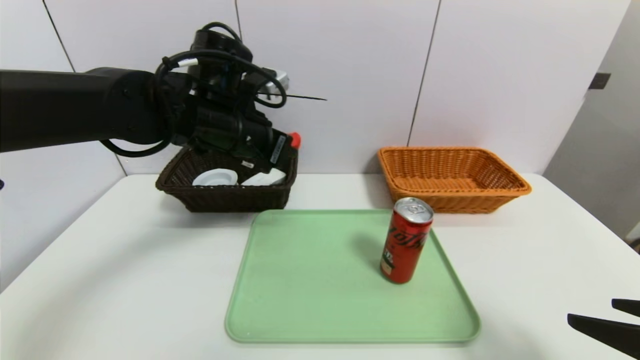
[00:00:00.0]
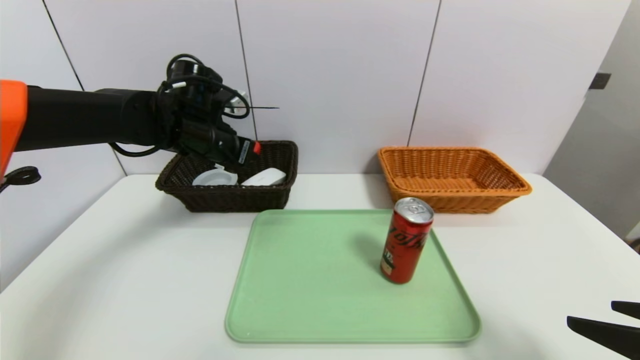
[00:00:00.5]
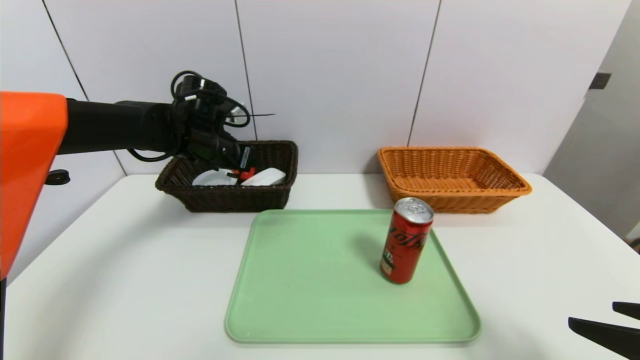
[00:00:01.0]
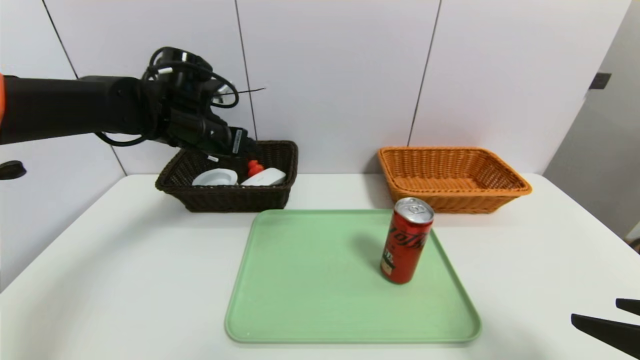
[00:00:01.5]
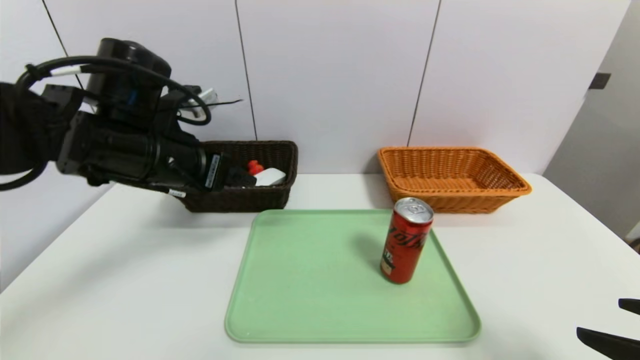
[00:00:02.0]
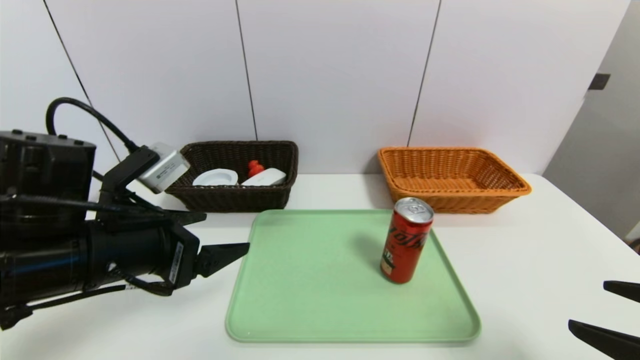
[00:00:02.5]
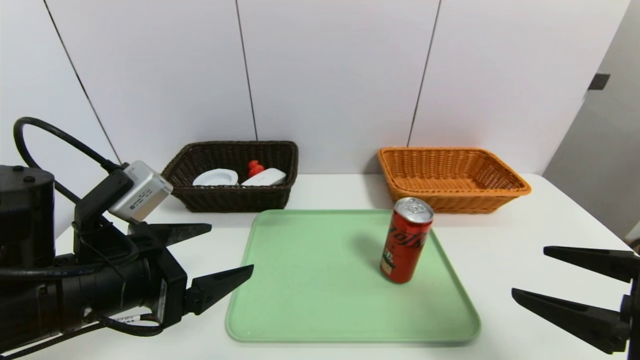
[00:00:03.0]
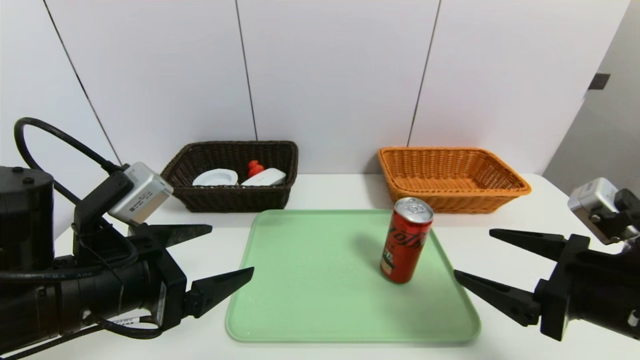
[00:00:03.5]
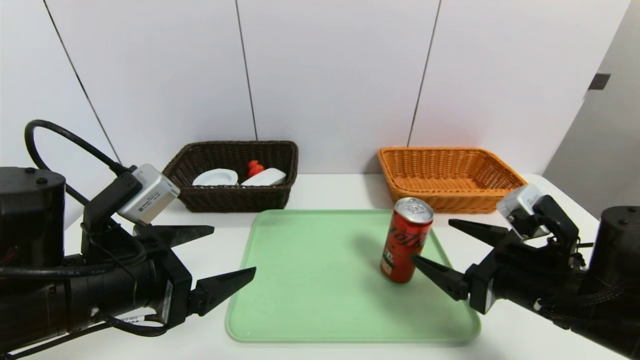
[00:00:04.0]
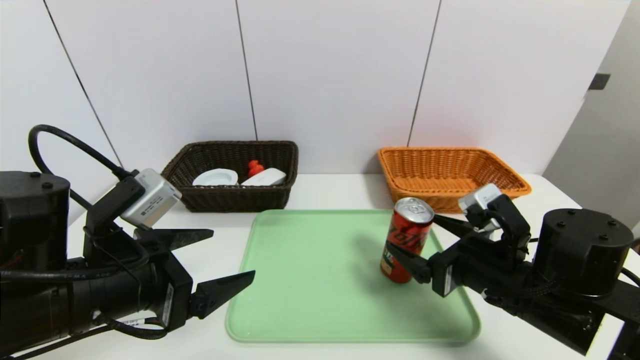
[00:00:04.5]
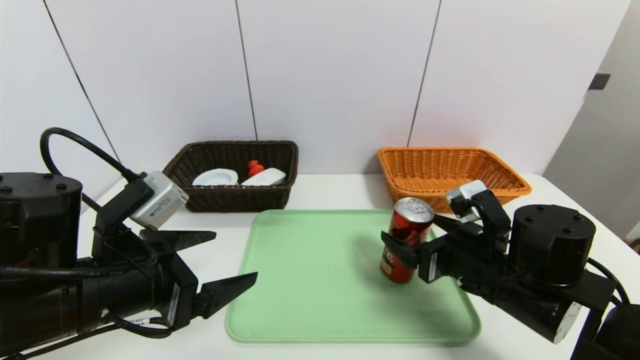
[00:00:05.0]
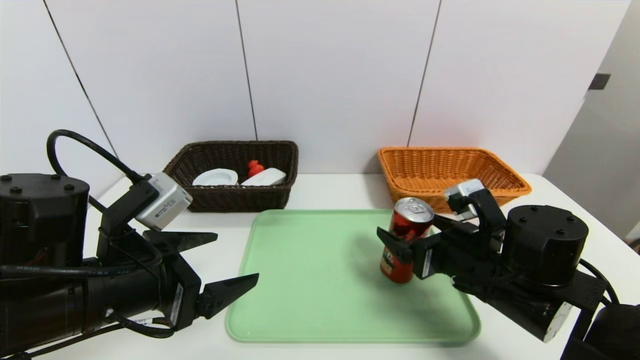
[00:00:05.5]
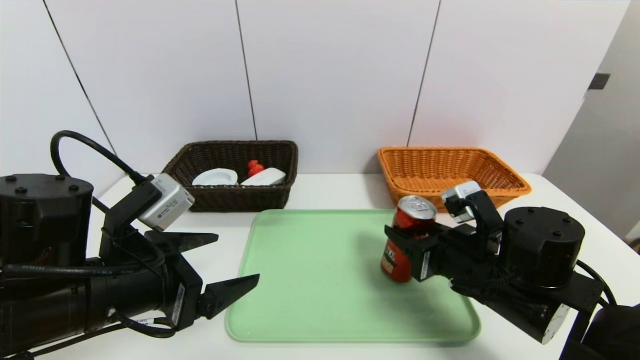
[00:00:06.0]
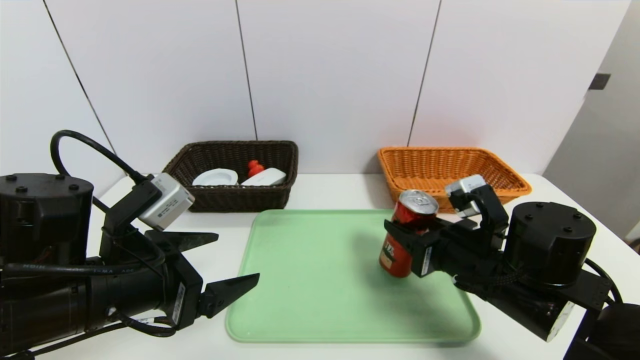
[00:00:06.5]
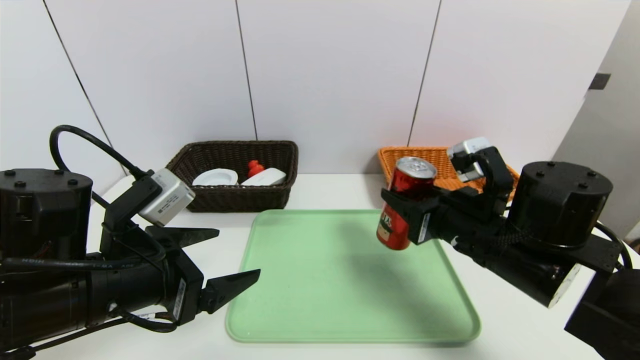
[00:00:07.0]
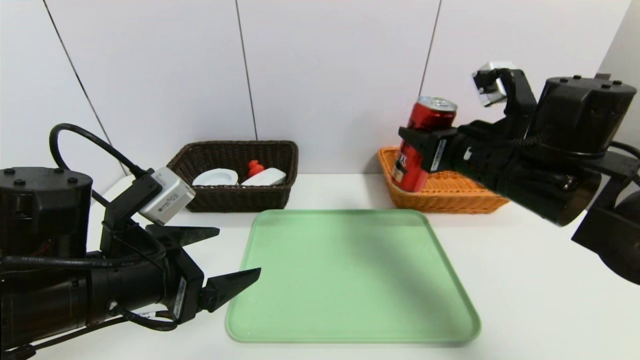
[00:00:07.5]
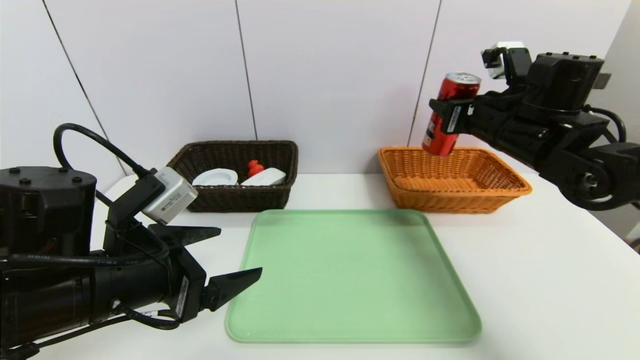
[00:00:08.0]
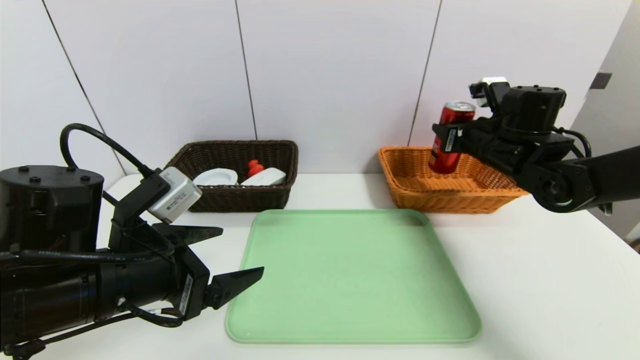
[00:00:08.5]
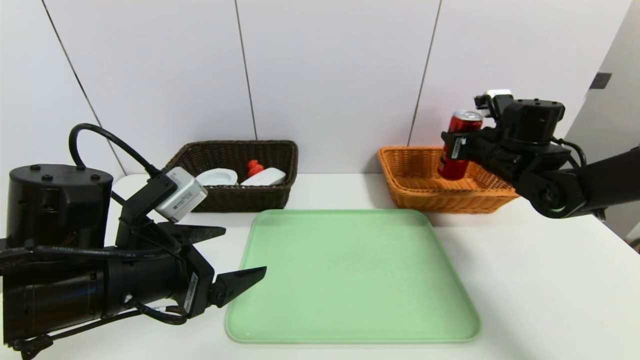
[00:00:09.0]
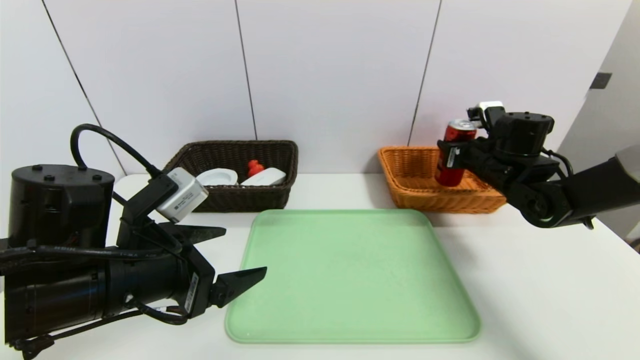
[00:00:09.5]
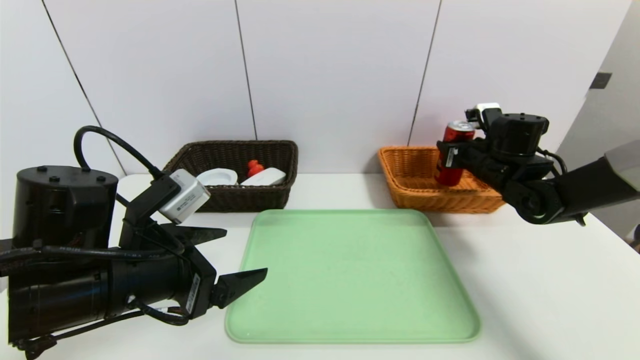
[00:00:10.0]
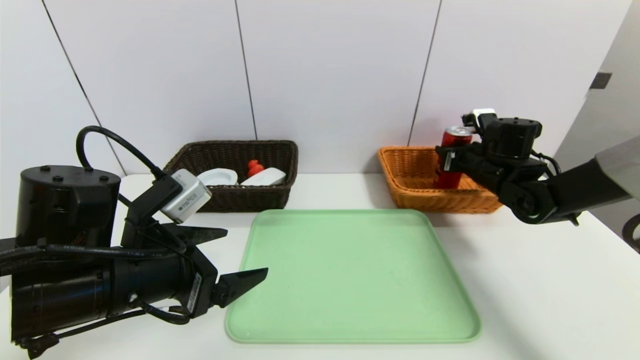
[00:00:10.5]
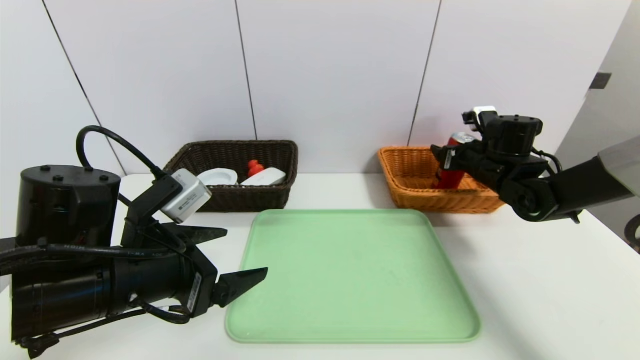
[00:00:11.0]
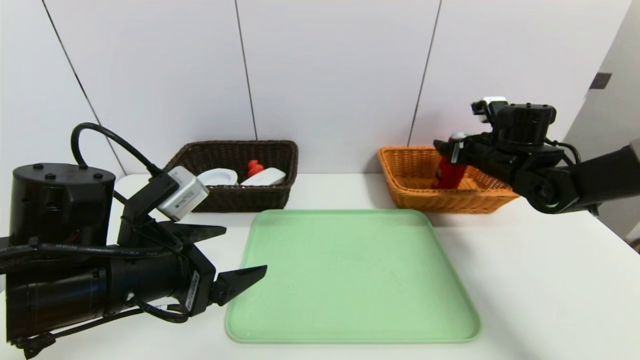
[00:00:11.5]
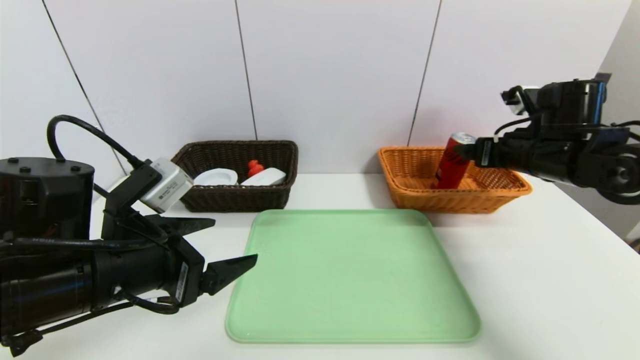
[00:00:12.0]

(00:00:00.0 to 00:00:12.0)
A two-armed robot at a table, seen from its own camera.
Task of the whole recording: place the food in the right basket with the right gripper, and place the non food items in the left basket with the left gripper.
Step, 00:00:01.5 - 00:00:11.5: Grasp the coke and put it in the right basket.
00:00:00.0 - 00:00:02.0: The left gripper shifts about 10 cm backward and to the left, and opens.
00:00:02.0 - 00:00:04.0: The right gripper travels forward, to the left and downward by roughly 15 cm, while the left gripper goes about 15 cm backward and downward.
00:00:04.0 - 00:00:06.0: The right gripper ends up roughly 5 cm from where it was, and closes.
00:00:06.0 - 00:00:08.0: The right gripper shifts roughly 20 cm upward, forward and to the right.
00:00:08.0 - 00:00:10.0: The right gripper shifts about 10 cm downward and forward.
00:00:10.0 - 00:00:12.0: The right gripper shifts approximately 10 cm backward and upward, and opens up.

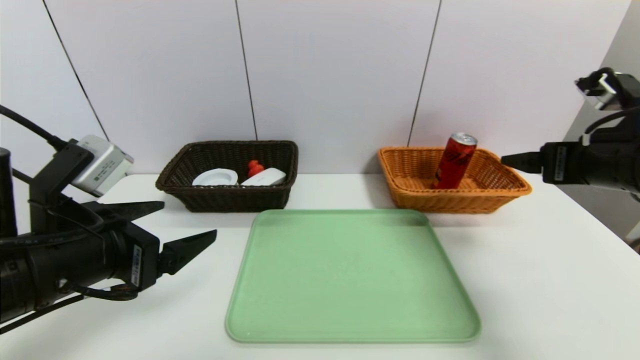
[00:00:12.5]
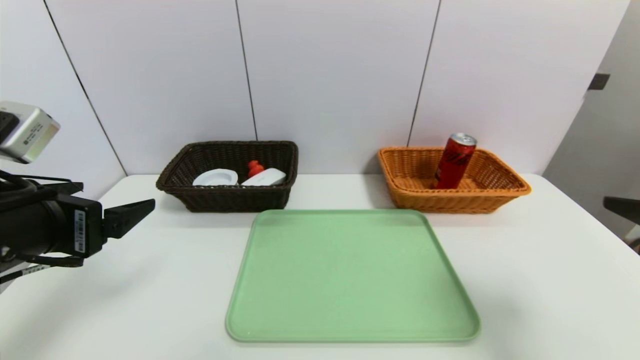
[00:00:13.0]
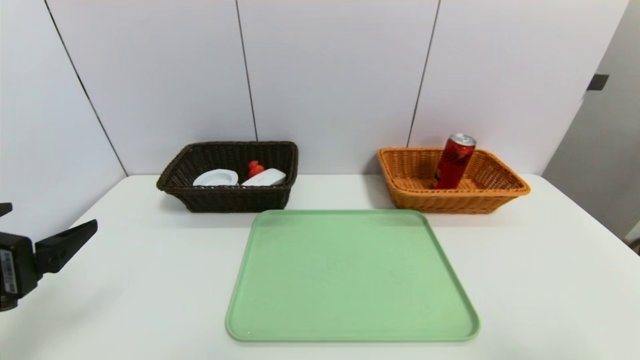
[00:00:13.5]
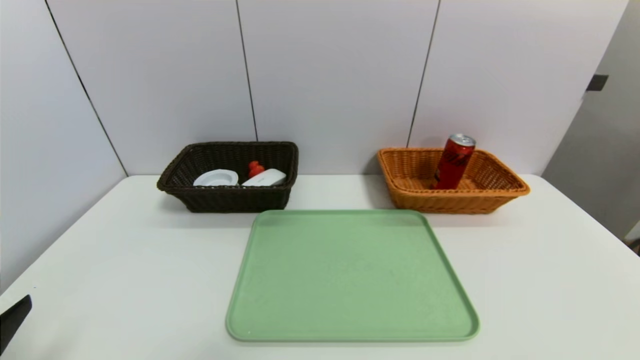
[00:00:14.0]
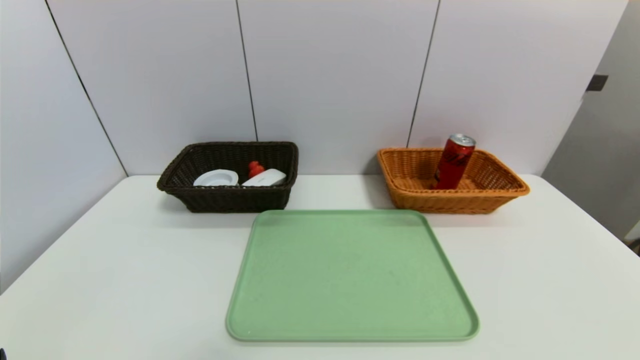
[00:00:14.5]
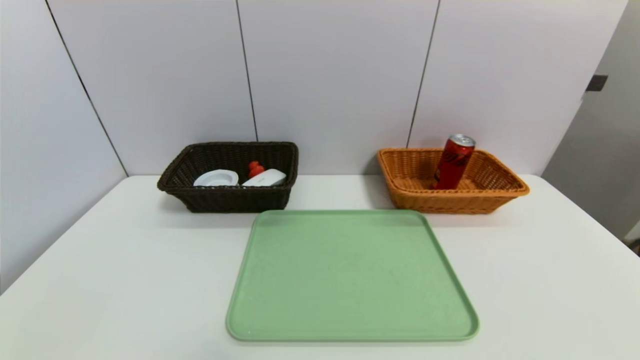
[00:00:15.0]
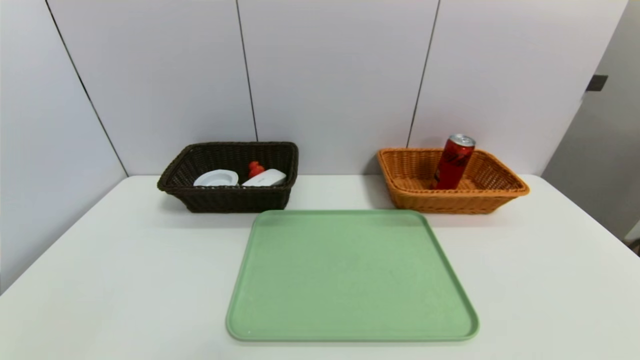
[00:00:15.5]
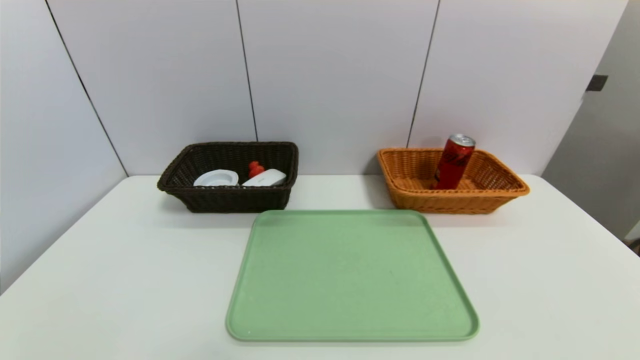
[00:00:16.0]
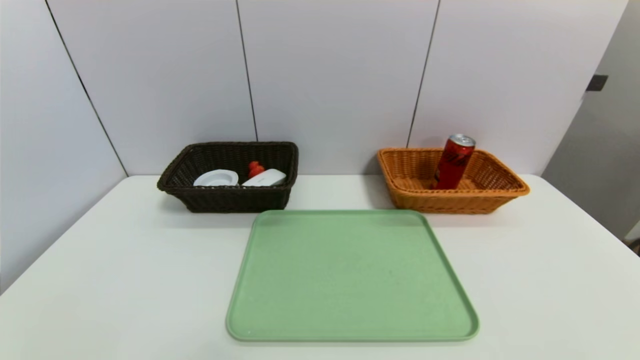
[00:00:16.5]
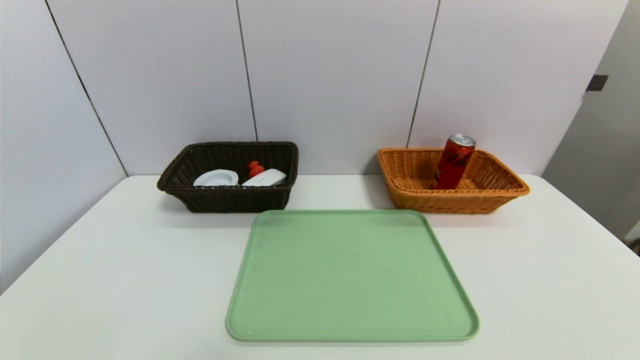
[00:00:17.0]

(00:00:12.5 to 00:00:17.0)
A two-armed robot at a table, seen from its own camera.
Task of the whole recording: place the food in the right basket with the right gripper, and place the non food items in the left basket with the left gripper.
00:00:12.5 - 00:00:14.5: The right gripper moves backward, approximately 30 cm, while the left gripper moves backward, to the left and downward, roughly 20 cm.
